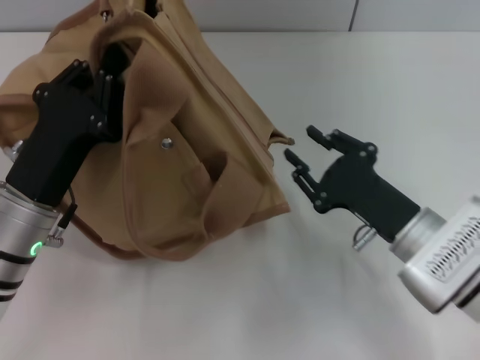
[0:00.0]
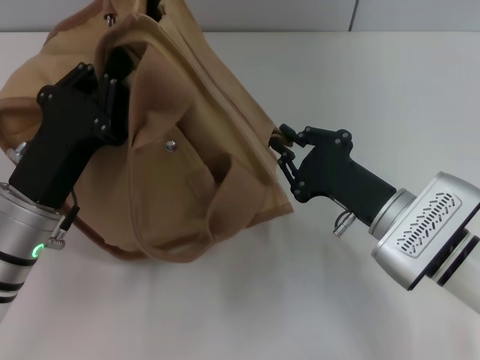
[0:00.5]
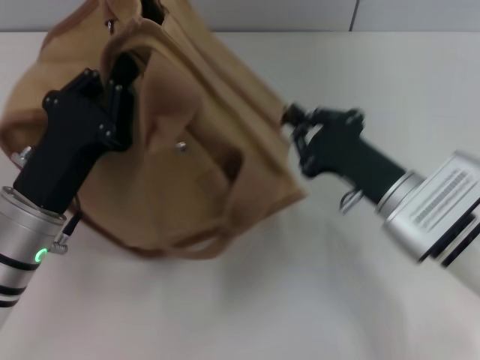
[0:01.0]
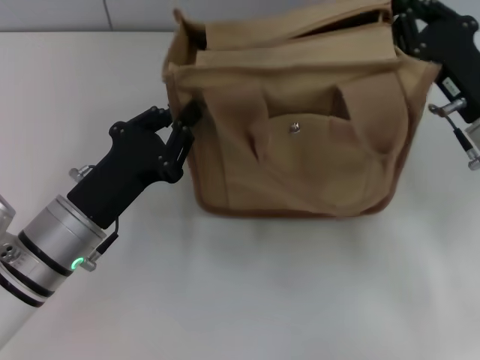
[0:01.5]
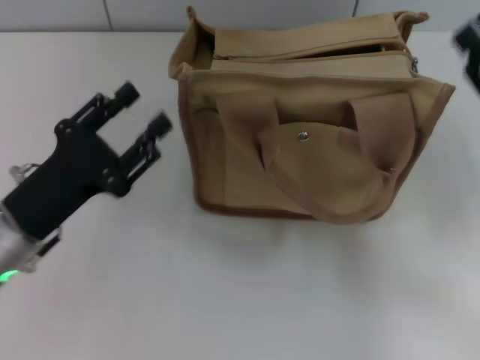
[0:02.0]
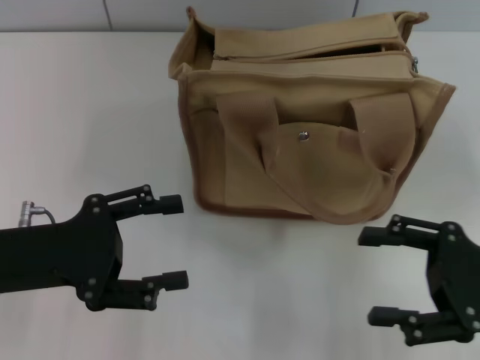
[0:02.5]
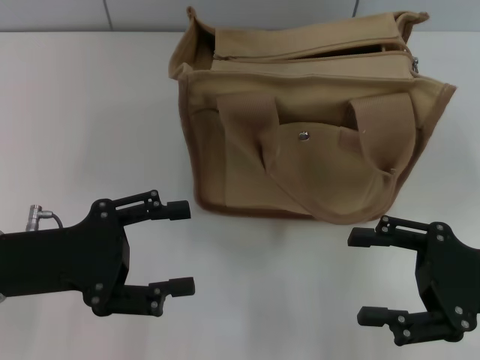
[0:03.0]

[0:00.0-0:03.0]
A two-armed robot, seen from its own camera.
Step, 0:00.0 to 0:01.5: Grab the bag with your left hand.
0:00.0 to 0:01.5: The right gripper travels forward, upward and to the right by roughly 10 cm.
0:01.5 to 0:03.0: The left gripper travels to the left by roughly 5 cm, and opens; the right gripper is displaced backward by approximately 10 cm, and opens.

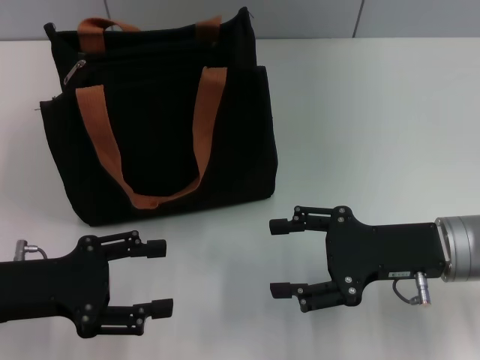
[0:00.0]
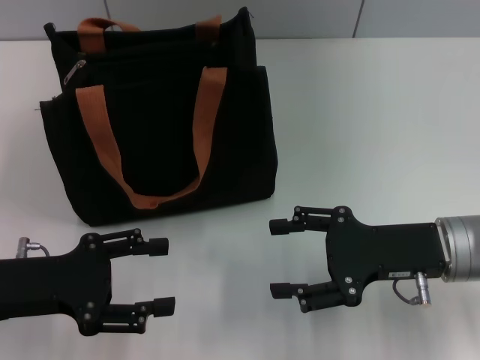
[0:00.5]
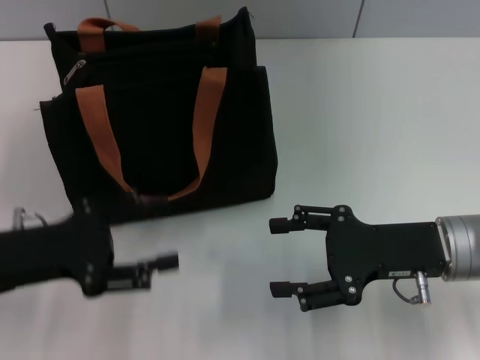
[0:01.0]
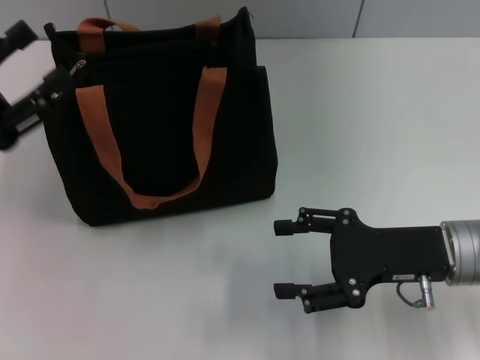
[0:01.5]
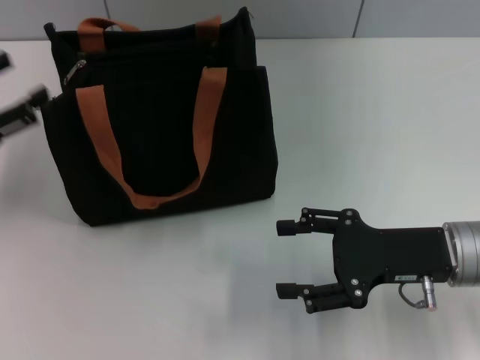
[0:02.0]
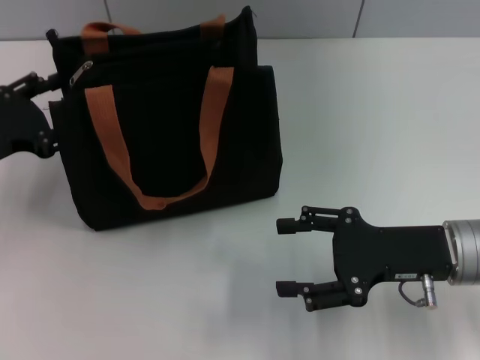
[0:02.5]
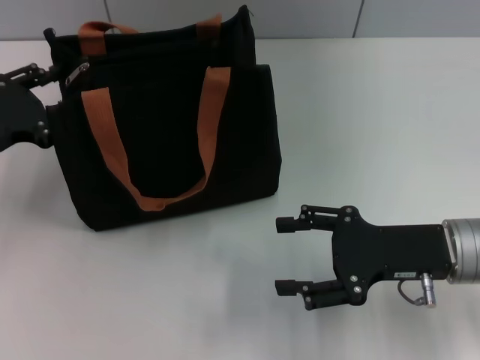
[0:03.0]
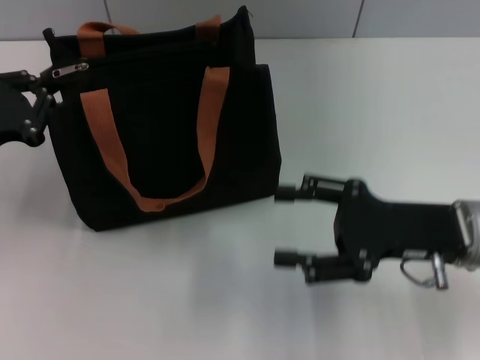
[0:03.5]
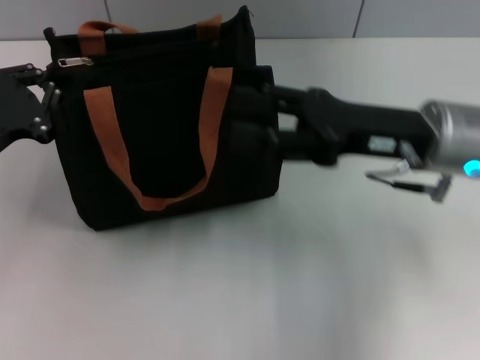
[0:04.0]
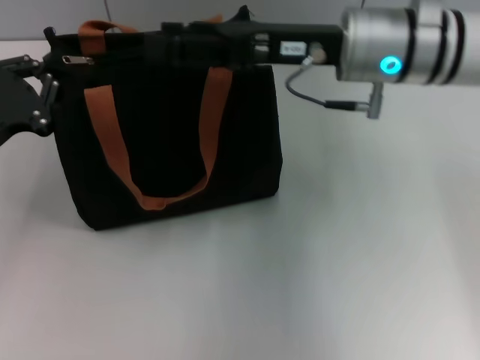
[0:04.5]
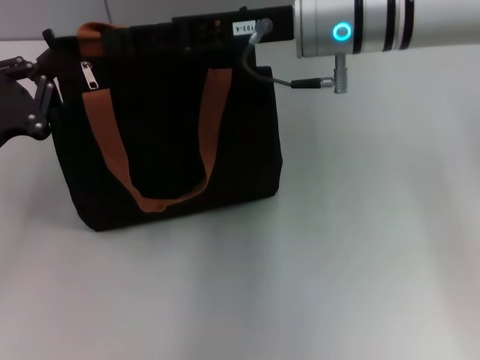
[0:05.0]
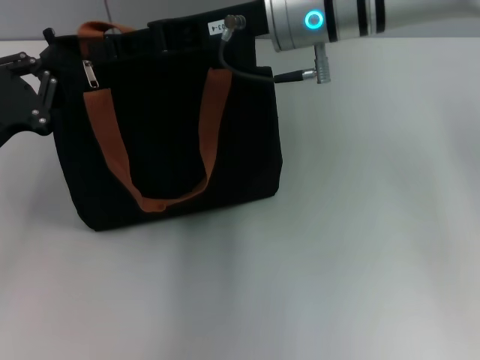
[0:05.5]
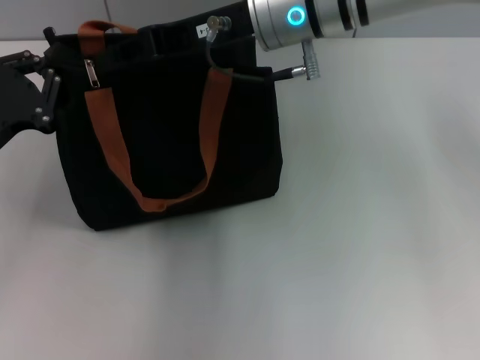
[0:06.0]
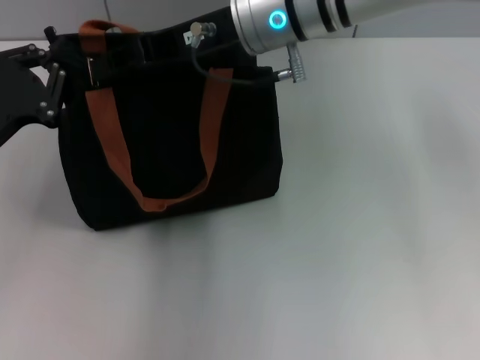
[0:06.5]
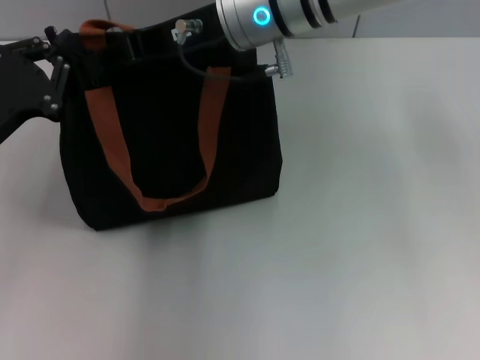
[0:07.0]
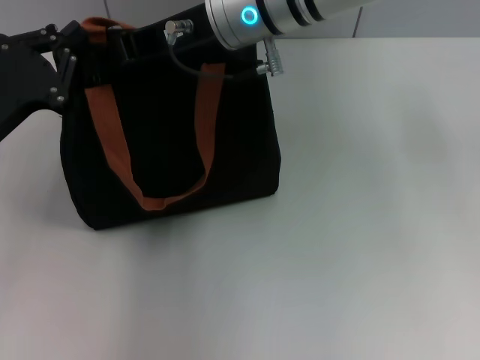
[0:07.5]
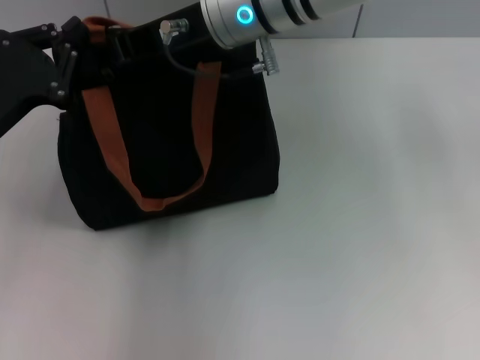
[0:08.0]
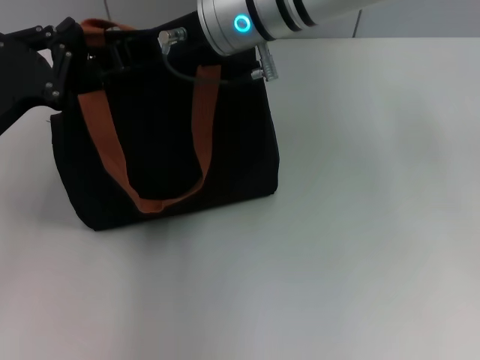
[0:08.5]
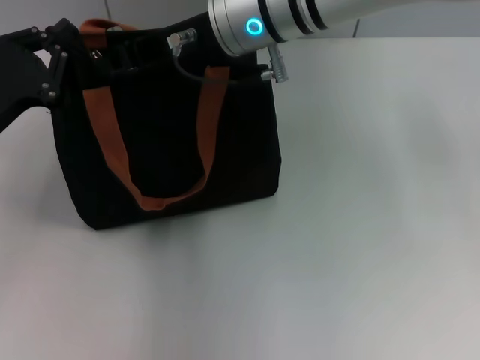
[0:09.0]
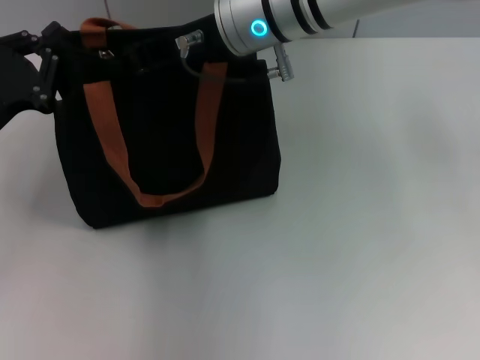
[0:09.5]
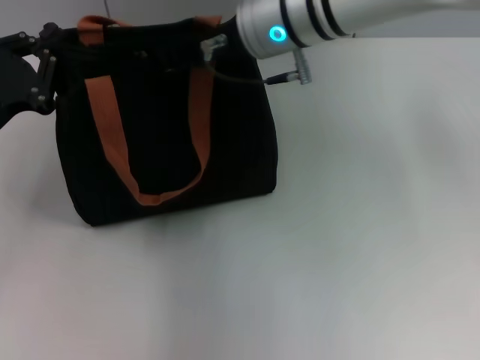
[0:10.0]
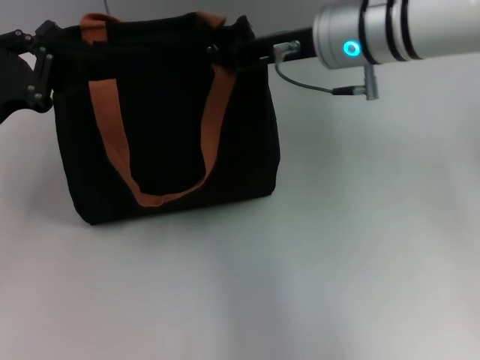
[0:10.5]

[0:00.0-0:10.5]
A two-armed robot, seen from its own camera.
0:00.0 to 0:02.0: The left gripper travels to the left and forward by roughly 10 cm.
0:02.0 to 0:04.0: The left gripper shifts by roughly 5 cm, and closes. Meanwhile the right gripper moves upward and forward, some 10 cm.
0:04.0 to 0:06.5: The right gripper heads to the left, forward and upward, covering approximately 20 cm, and closes its fingers.
0:06.5 to 0:08.5: There are only small adjustments of the grippers.
0:08.5 to 0:10.5: The right gripper is displaced to the right by roughly 10 cm.

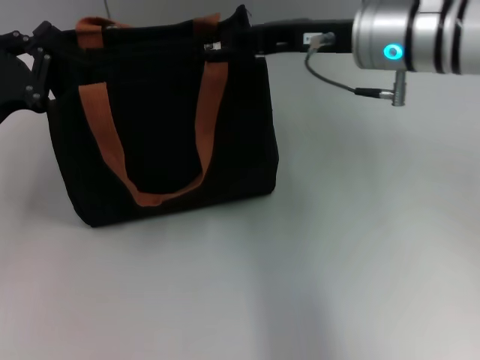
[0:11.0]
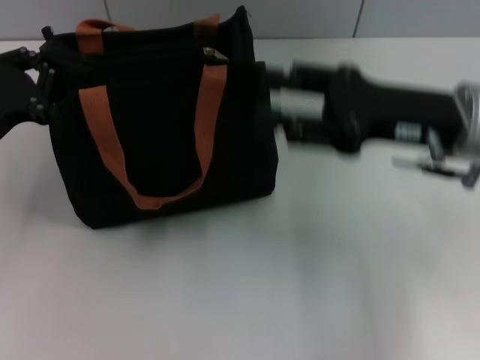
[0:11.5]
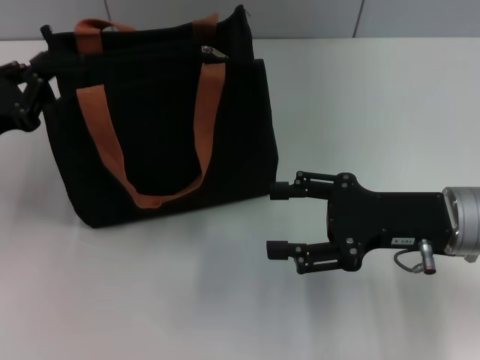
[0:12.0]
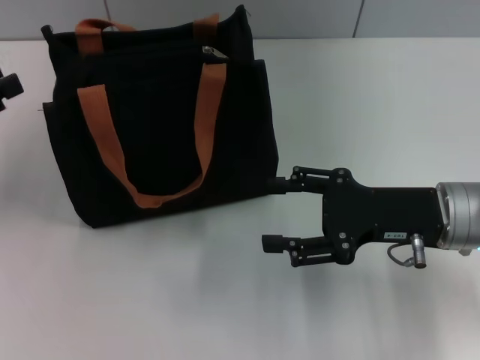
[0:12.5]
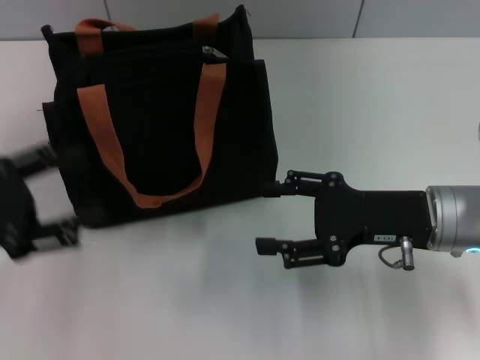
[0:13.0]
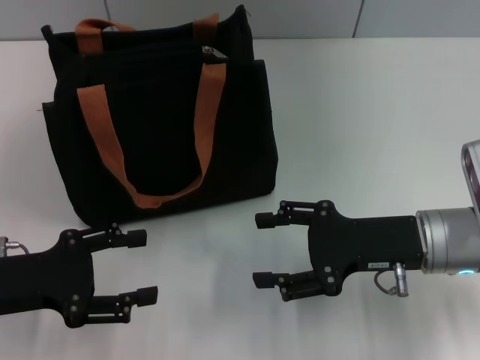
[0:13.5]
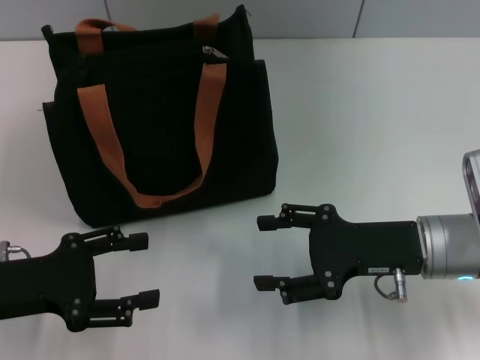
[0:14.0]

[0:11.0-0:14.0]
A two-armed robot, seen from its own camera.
Step, 0:11.5 to 0:12.0: Grab the zipper with your left hand.
0:11.0 to 0:12.5: The right gripper heads backward, downward and to the right, covering roughly 15 cm, and opens its fingers, while the left gripper goes roughly 10 cm to the left, and opens.
0:12.5 to 0:14.0: The left gripper shifts some 10 cm to the right, downward and backward, and opens up.

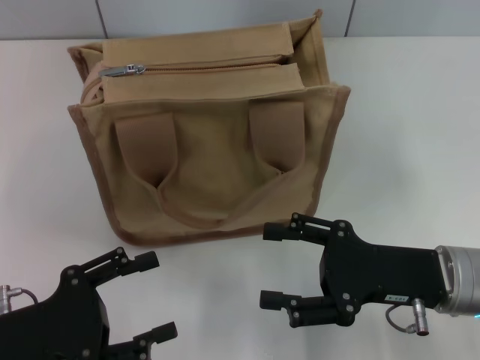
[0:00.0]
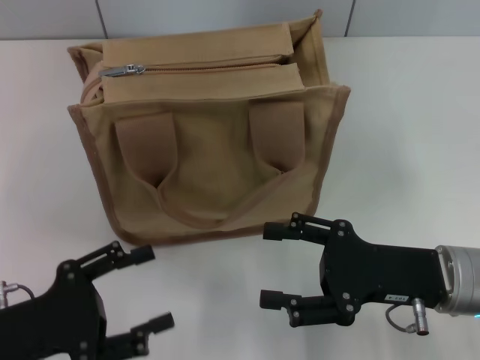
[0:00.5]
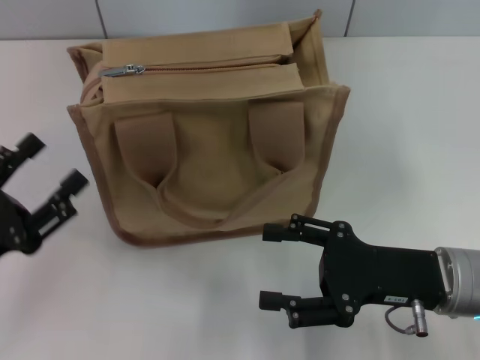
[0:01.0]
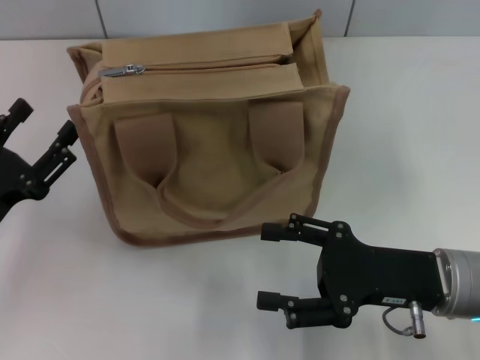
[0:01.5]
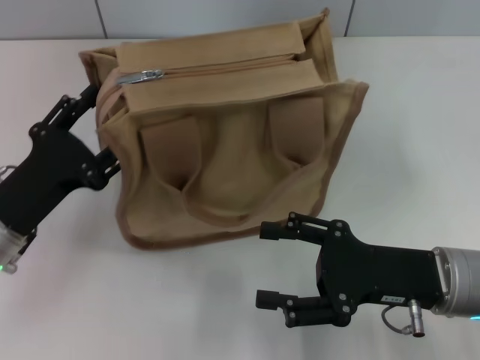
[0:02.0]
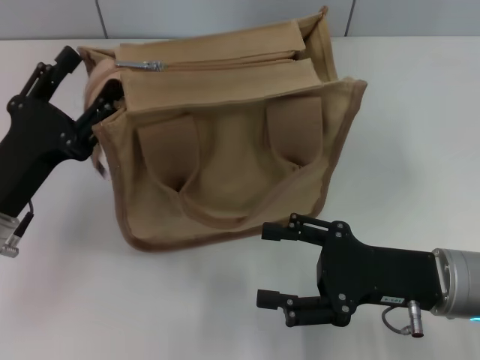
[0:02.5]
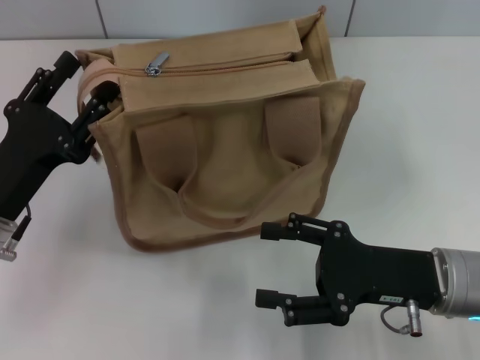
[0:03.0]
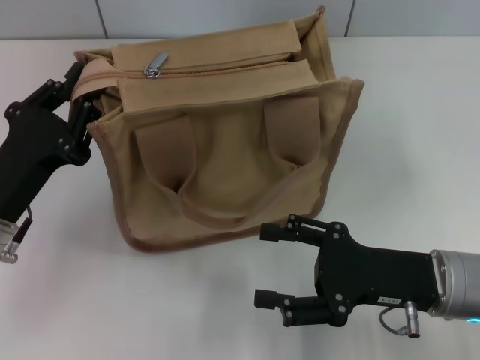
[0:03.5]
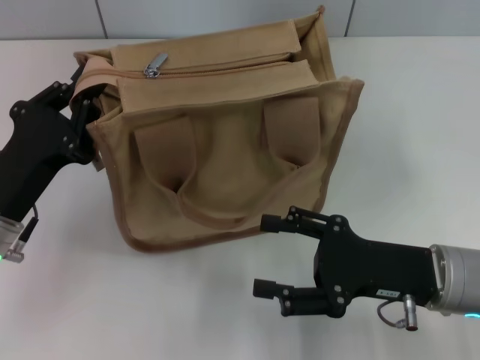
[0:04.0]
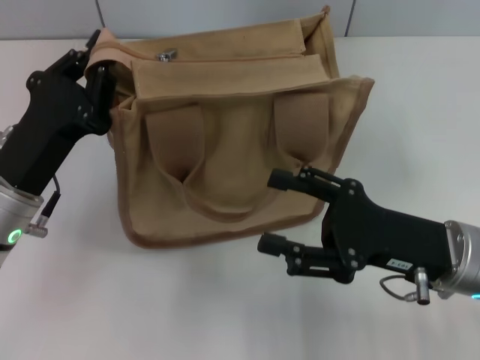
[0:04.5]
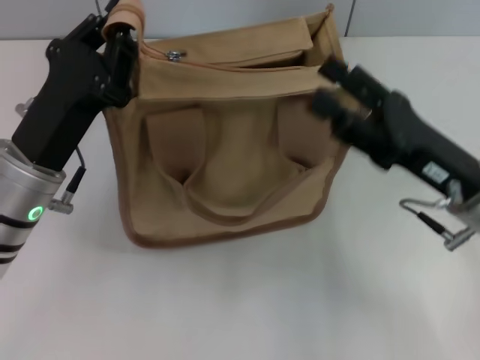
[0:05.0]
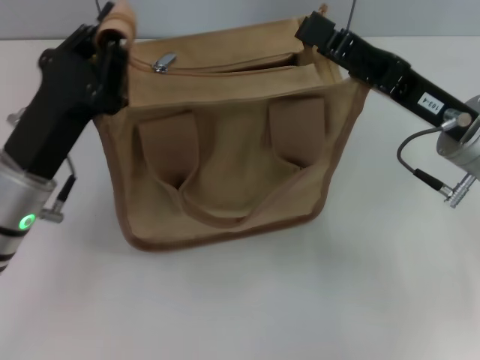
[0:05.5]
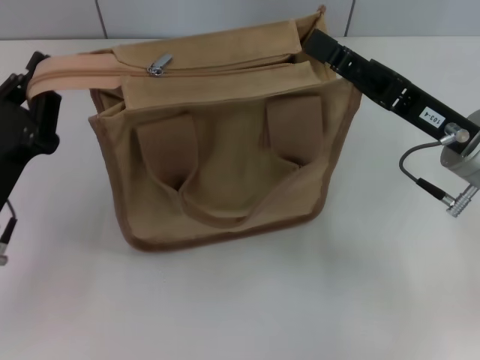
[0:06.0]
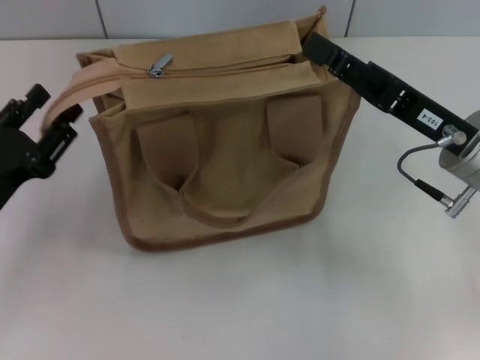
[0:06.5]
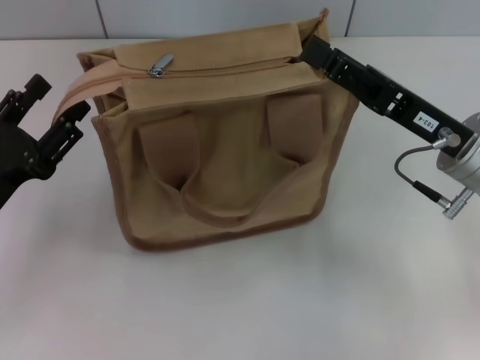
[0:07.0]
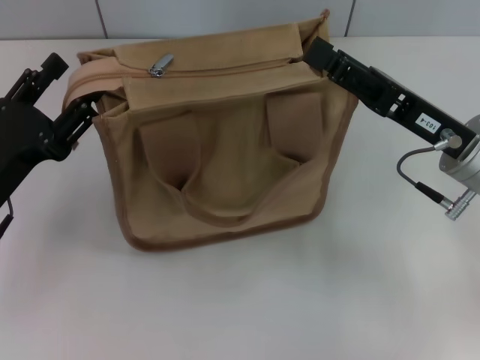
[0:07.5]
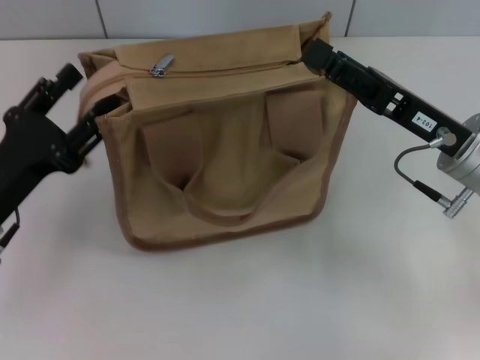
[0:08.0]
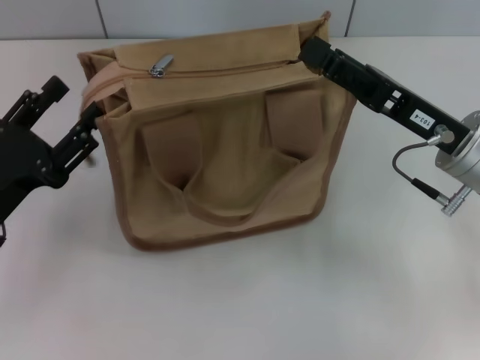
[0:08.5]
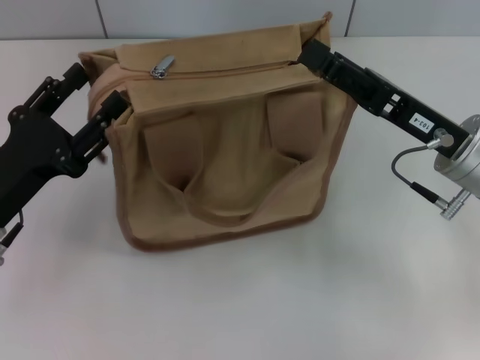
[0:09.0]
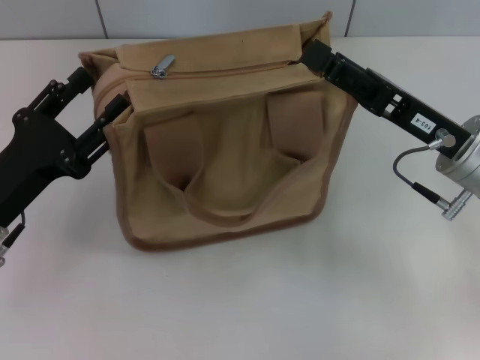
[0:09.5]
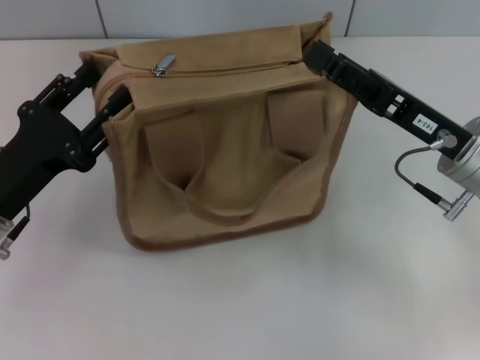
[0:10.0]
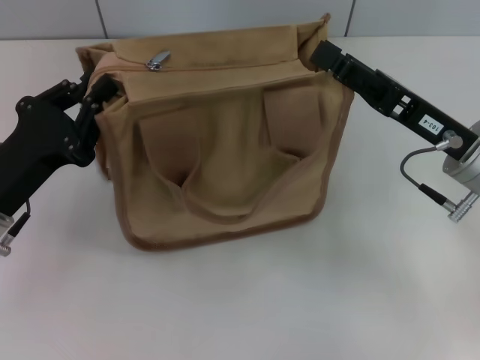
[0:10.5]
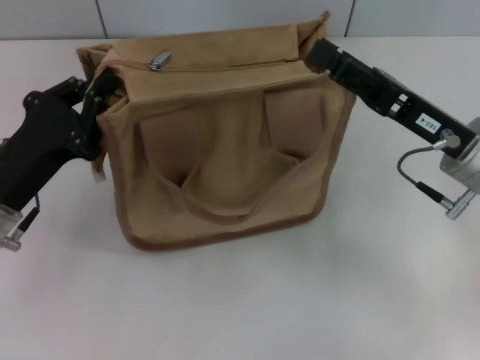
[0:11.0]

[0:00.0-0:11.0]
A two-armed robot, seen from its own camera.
0:00.0 to 0:02.0: The left gripper is displaced forward by about 10 cm.
0:02.0 to 0:03.5: The left gripper closes.
0:03.5 to 0:05.5: The right gripper goes approximately 10 cm forward and upward. Meanwhile the left gripper shifts by some 5 cm.
0:05.5 to 0:07.5: The left gripper shifts about 5 cm to the left, and opens up.
0:07.5 to 0:09.0: The grippers stay close to where they were, moving slightly.
0:09.0 to 0:11.0: The left gripper closes its fingers.
